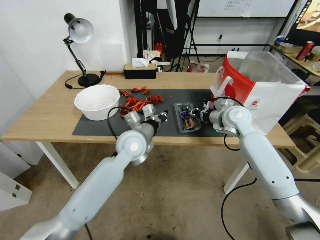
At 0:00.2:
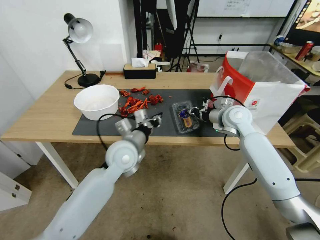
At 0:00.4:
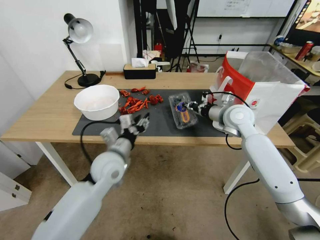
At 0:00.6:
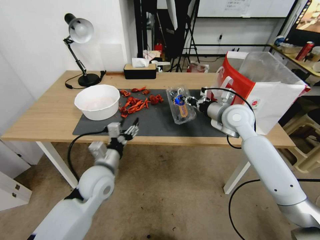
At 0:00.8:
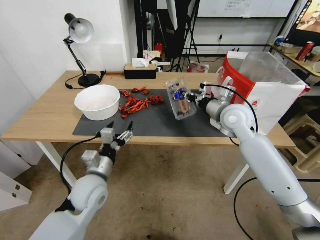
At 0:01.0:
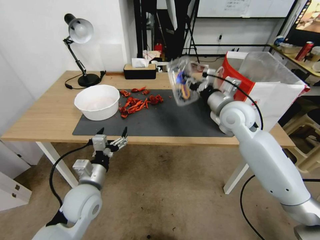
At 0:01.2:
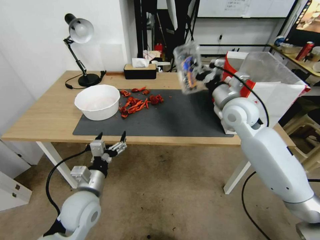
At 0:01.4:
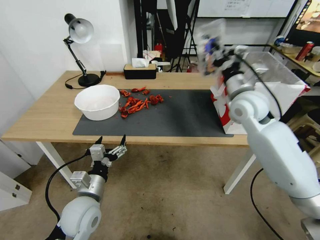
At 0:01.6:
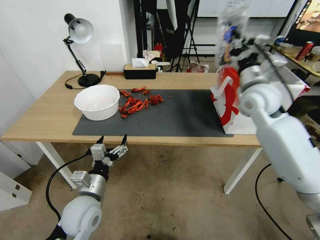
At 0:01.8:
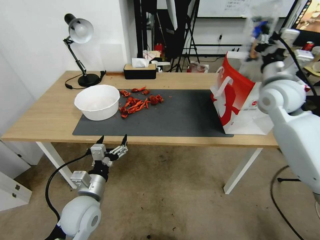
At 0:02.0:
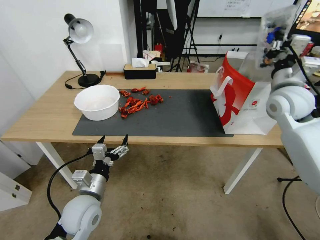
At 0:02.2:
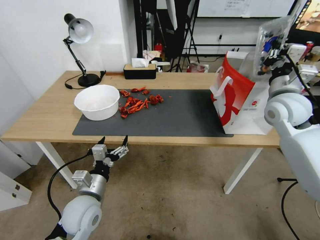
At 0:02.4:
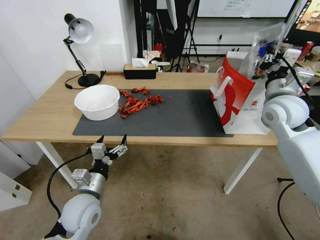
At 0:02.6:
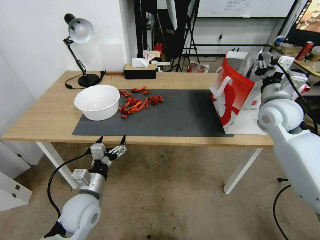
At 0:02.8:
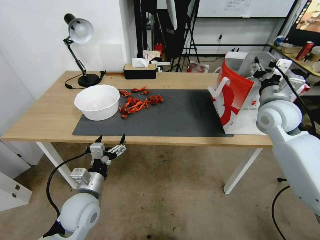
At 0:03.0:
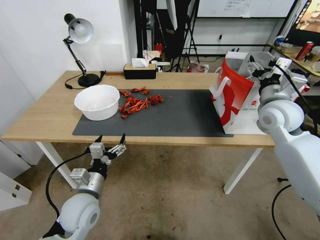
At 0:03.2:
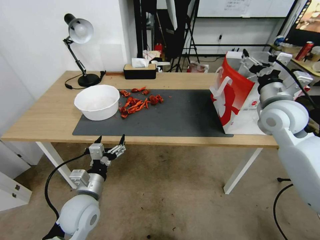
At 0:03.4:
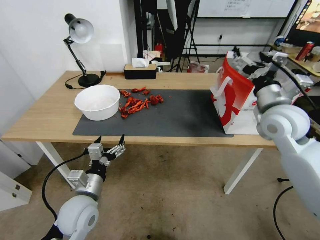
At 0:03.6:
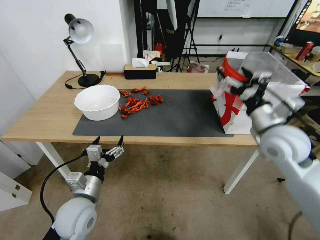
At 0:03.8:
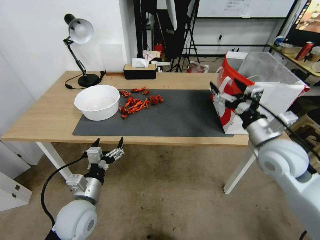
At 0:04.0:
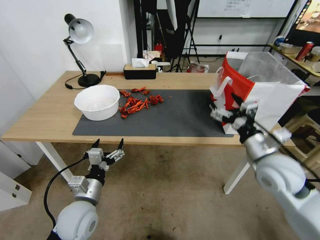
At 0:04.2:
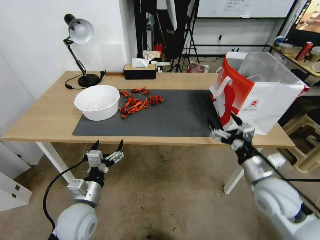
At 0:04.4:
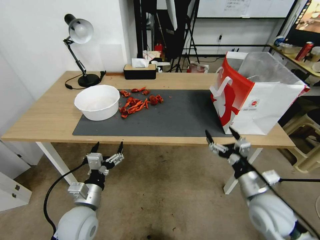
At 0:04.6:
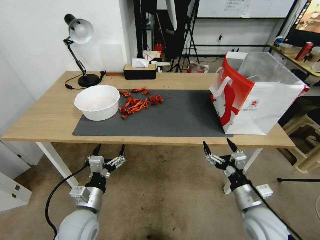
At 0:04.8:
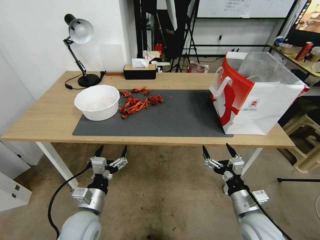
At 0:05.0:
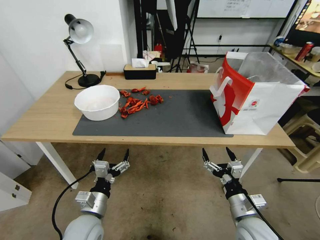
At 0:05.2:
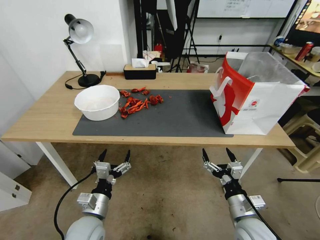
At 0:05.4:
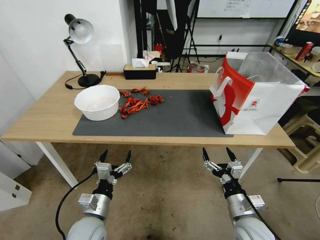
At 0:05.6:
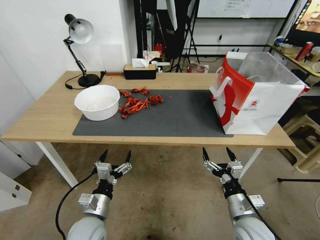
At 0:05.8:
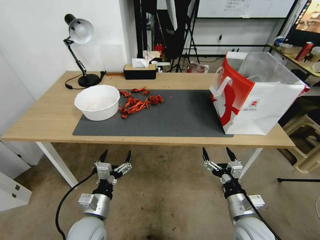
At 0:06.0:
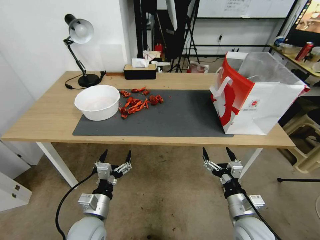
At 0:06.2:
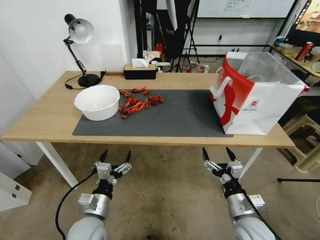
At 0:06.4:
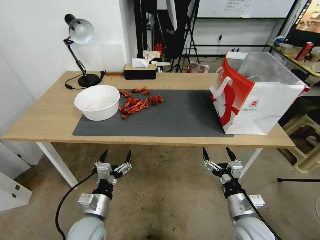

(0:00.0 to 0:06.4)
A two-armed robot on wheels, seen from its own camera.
Task of the whole recording: Close the takeout container lid, then place the container into the takeout bag.
0:00.0 - 0:01.6: The right gripper shifts approximately 10 cm upward. The left gripper is displaced backward, to the left and downward by about 25 cm, and opens.
0:01.6 - 0:03.2: The right gripper moves backward, some 5 cm, and opens up.
0:03.2 - 0:04.8: The right gripper moves downward and backward, about 30 cm.
0:04.8 - 0:06.4: The grippers move only a little.
